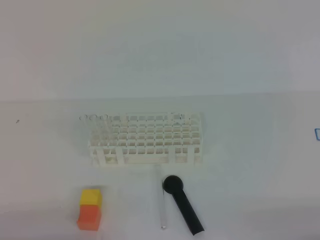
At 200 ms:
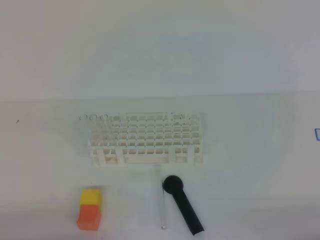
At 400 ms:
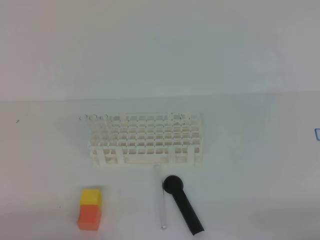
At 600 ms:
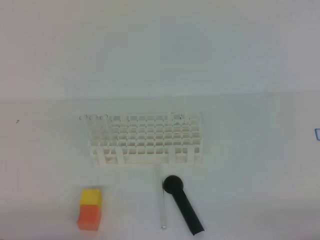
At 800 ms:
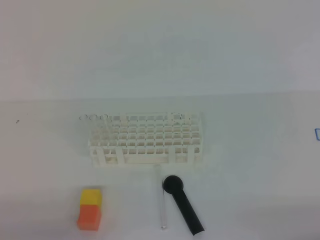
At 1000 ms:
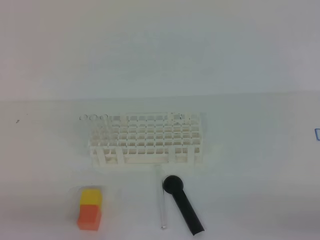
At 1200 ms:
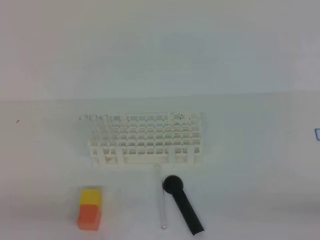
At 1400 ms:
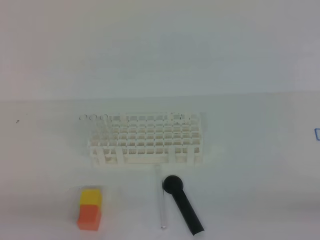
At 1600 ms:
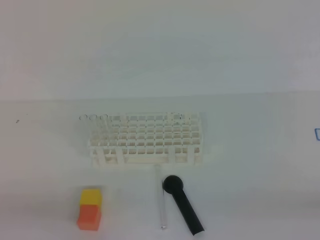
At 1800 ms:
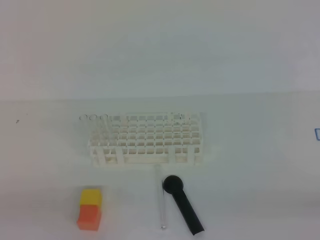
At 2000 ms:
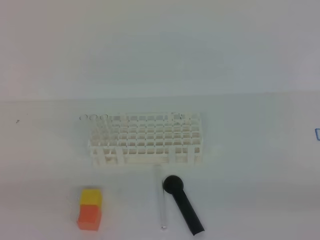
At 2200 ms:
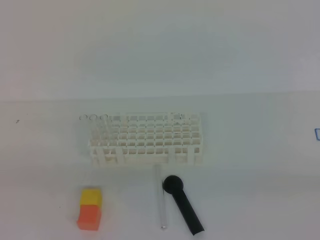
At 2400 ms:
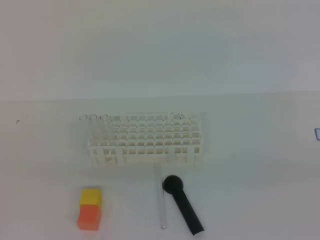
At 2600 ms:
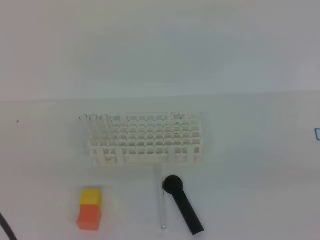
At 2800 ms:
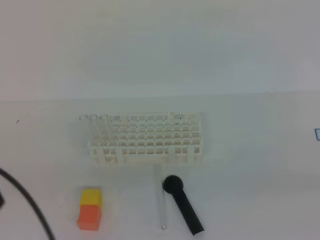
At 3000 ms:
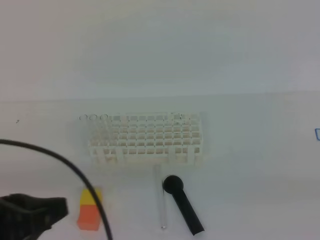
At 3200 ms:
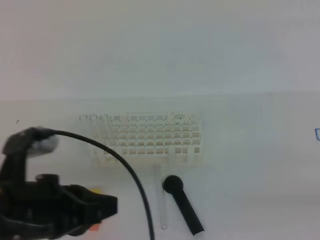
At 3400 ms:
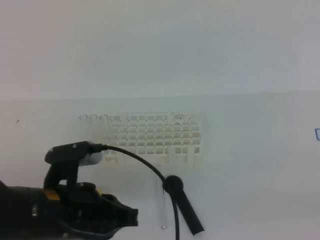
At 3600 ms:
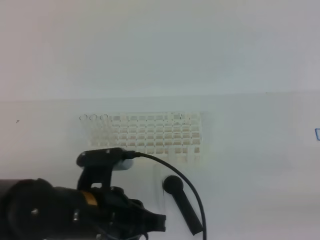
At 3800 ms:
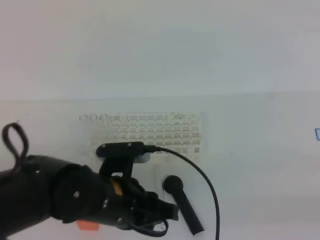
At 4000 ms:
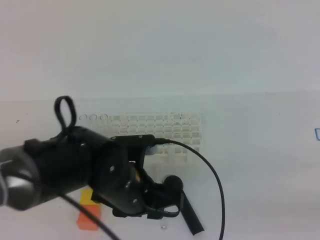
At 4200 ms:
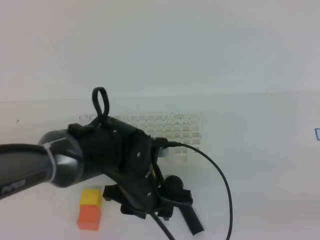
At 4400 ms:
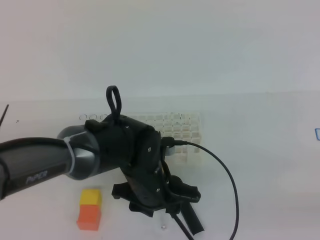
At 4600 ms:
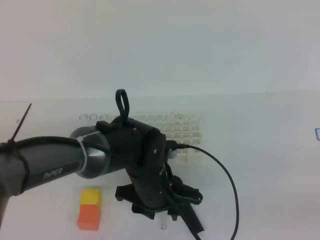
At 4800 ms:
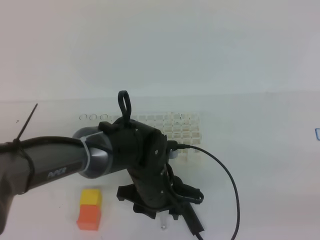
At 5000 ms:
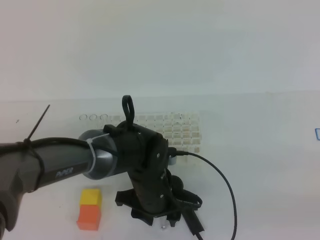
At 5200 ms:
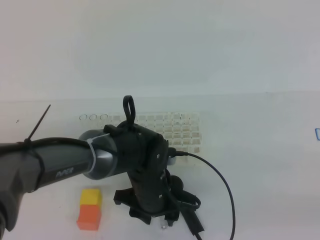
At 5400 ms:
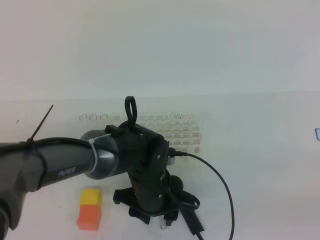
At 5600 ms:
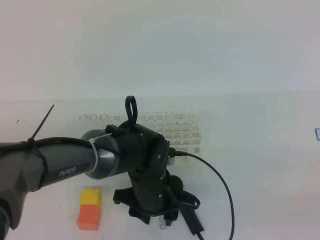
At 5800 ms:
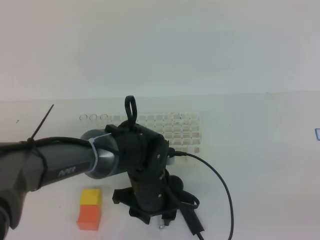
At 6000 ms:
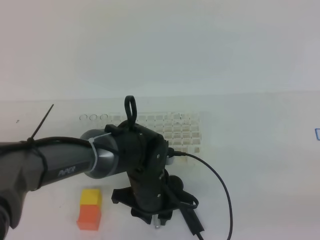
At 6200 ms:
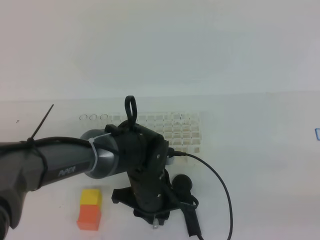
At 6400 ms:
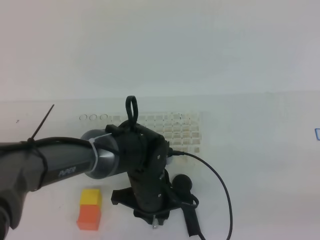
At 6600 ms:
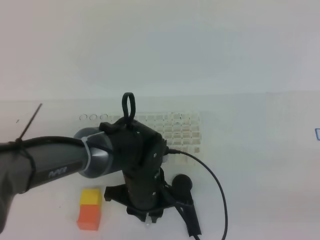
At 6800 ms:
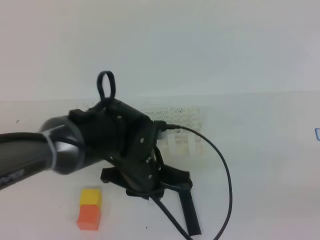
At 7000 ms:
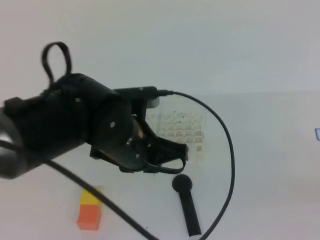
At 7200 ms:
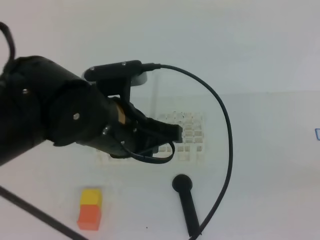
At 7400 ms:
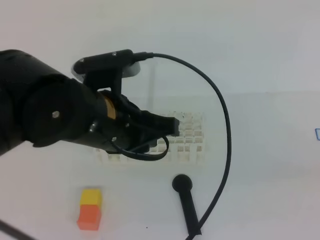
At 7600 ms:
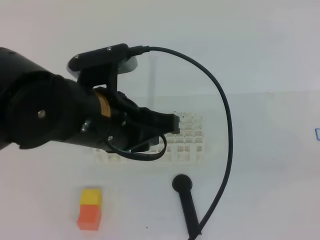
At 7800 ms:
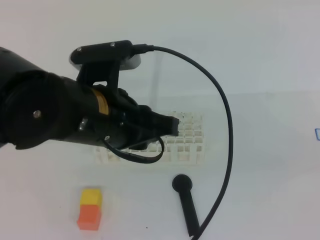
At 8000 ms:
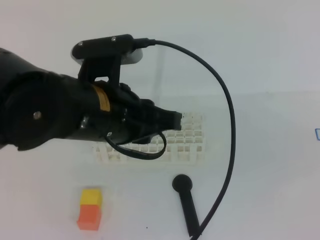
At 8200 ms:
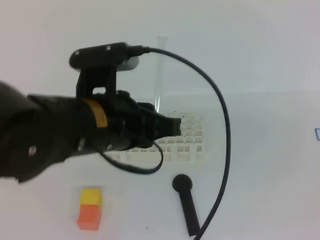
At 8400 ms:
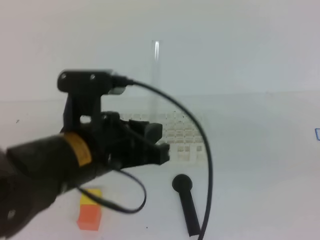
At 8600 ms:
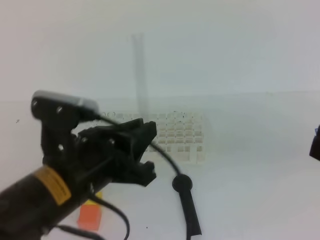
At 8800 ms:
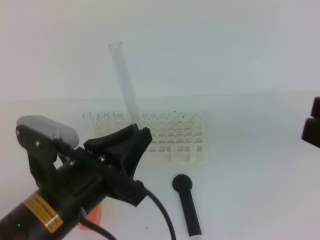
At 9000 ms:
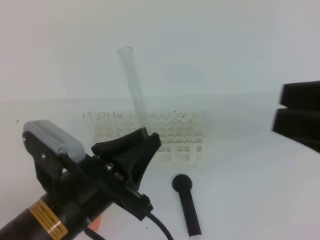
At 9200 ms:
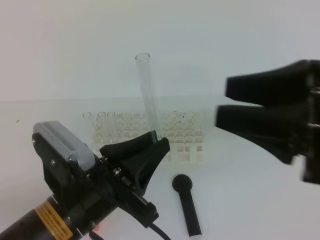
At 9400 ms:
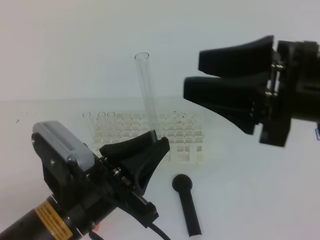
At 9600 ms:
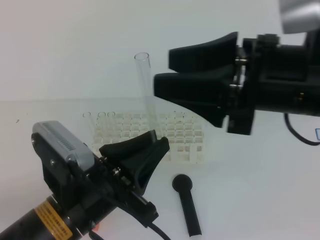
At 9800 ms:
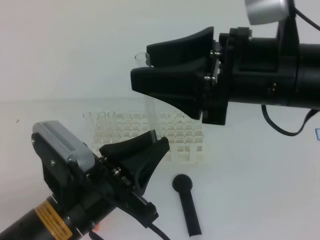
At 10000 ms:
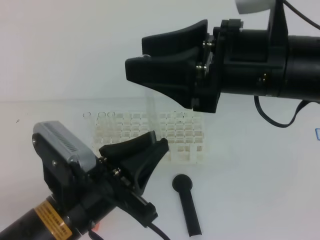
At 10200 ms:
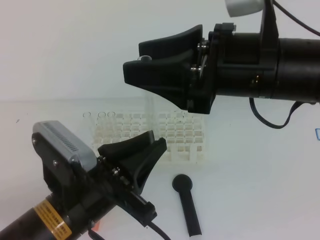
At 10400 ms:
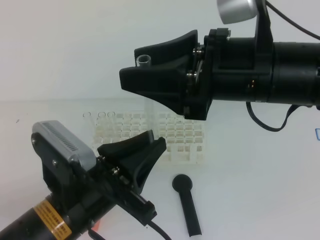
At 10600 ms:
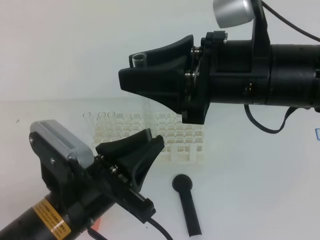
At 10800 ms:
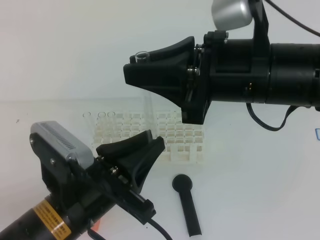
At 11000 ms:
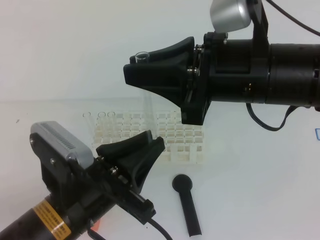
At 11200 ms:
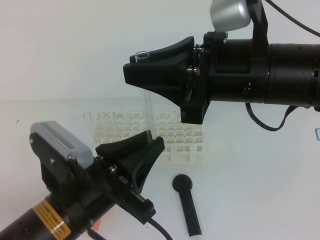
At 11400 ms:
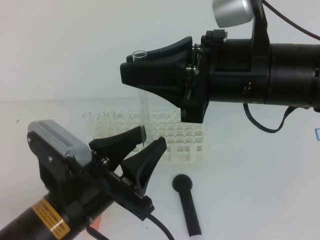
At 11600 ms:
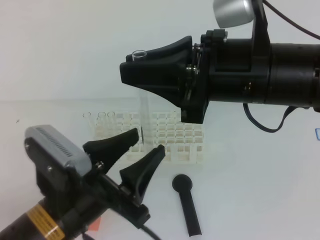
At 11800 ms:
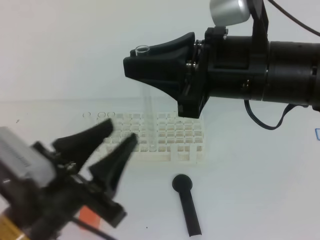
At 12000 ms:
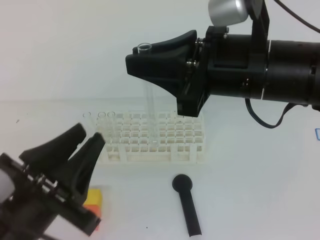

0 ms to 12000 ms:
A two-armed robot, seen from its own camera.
1600 ms to 3000 ms: The left gripper heads upward and forward, covering some 10 cm.
3000 ms to 4400 ms: The left gripper moves to the right, forward and downward, about 25 cm, and opens.
4400 ms to 6000 ms: The grippers stay close to where they were, moving slightly.
6000 ms to 7600 ms: The left gripper heads upward, covering roughly 20 cm, and closes.
7600 ms to 9000 ms: The right gripper travels forward and to the left by approximately 15 cm, and opens up; the left gripper shifts roughly 10 cm downward and backward.
9000 ms to 10400 ms: The right gripper moves to the left and forward, roughly 15 cm.
10400 ms to 12000 ms: The right gripper closes its fingers. Meanwhile the left gripper is displaced to the left by roughly 5 cm, and opens up.

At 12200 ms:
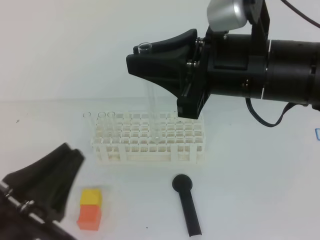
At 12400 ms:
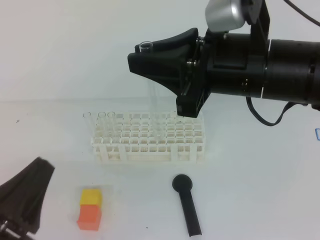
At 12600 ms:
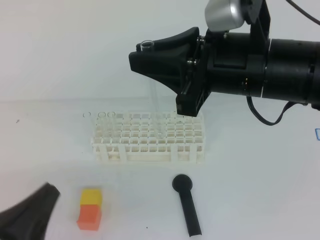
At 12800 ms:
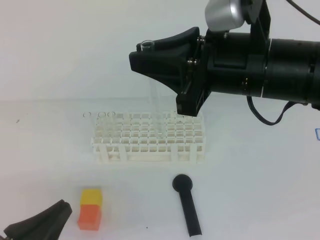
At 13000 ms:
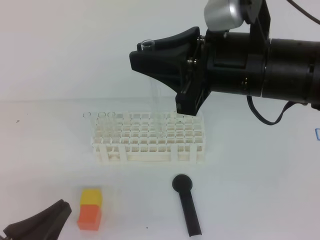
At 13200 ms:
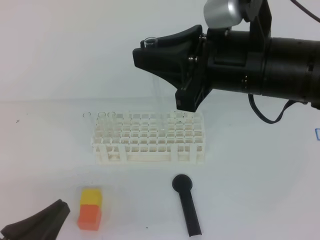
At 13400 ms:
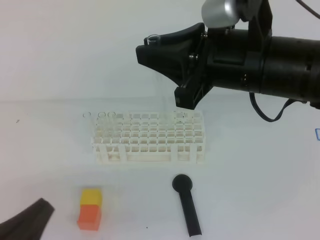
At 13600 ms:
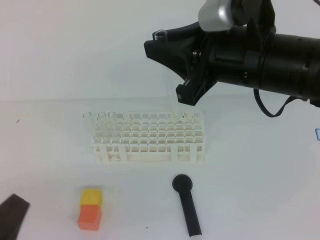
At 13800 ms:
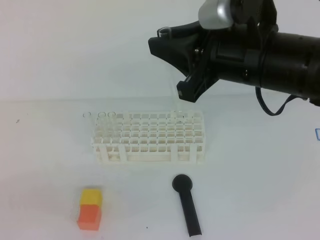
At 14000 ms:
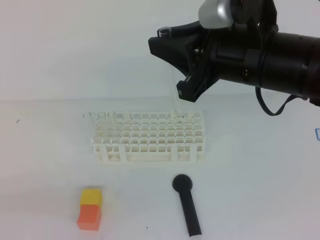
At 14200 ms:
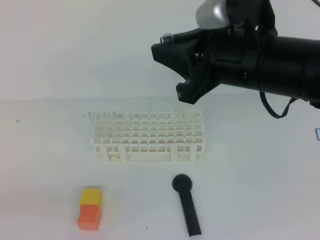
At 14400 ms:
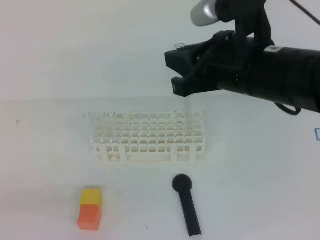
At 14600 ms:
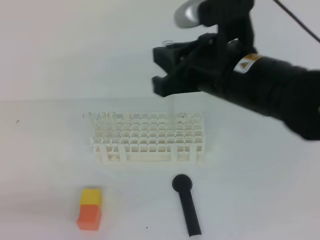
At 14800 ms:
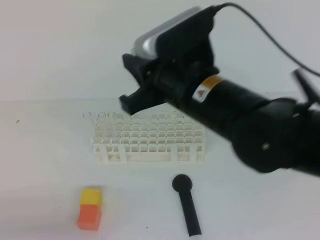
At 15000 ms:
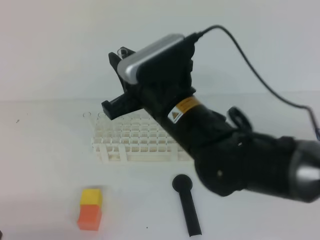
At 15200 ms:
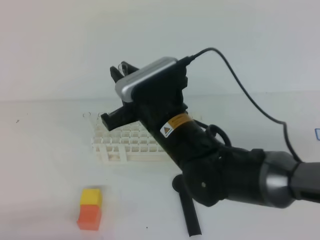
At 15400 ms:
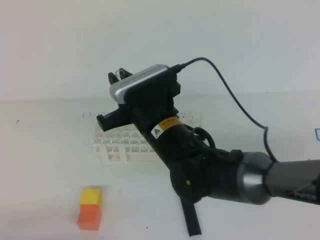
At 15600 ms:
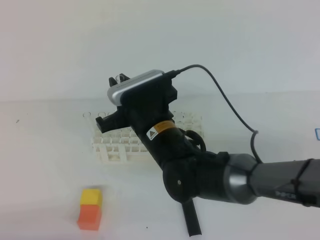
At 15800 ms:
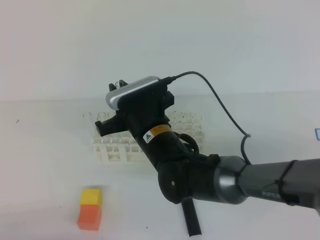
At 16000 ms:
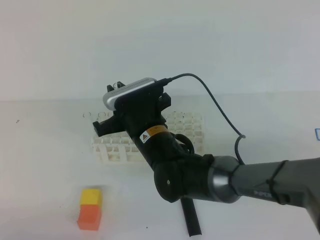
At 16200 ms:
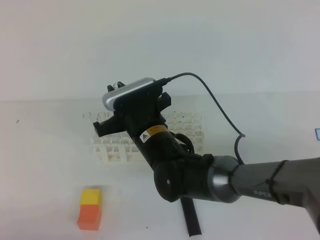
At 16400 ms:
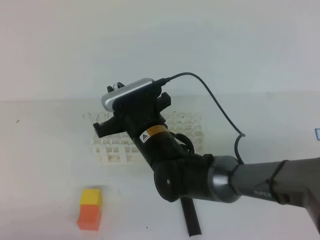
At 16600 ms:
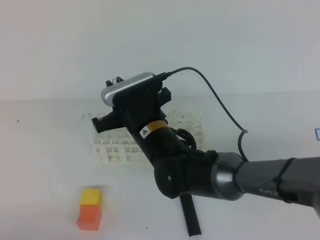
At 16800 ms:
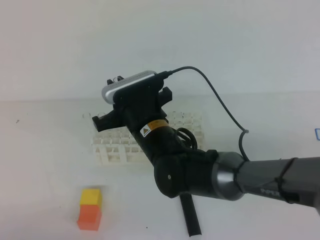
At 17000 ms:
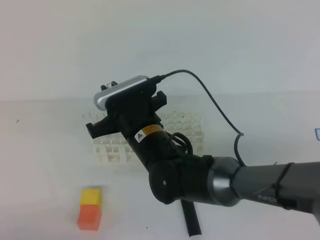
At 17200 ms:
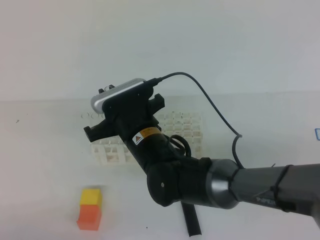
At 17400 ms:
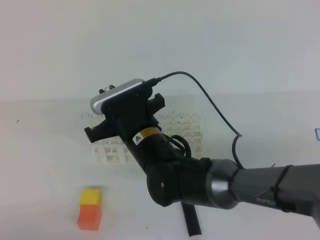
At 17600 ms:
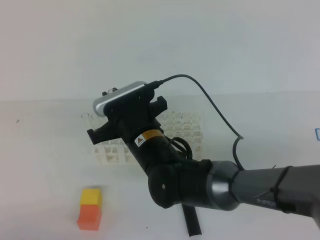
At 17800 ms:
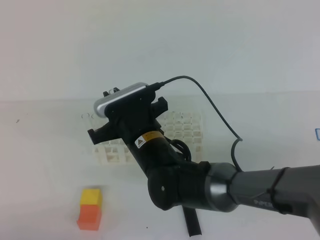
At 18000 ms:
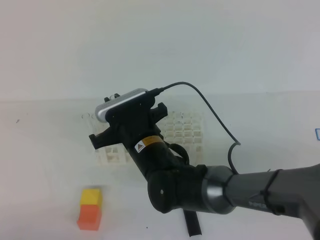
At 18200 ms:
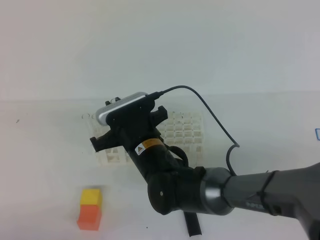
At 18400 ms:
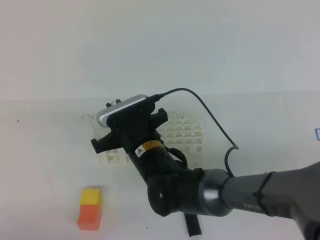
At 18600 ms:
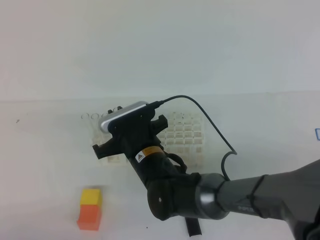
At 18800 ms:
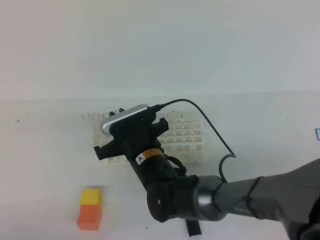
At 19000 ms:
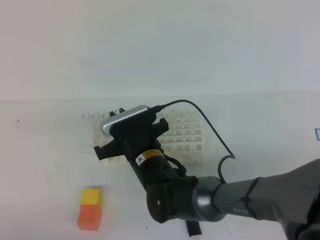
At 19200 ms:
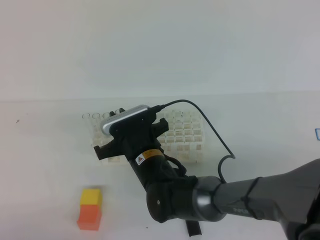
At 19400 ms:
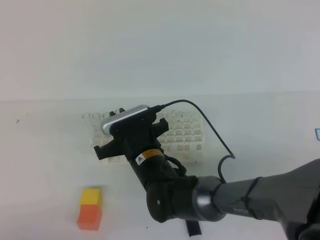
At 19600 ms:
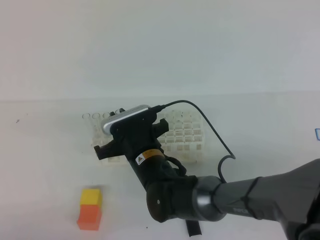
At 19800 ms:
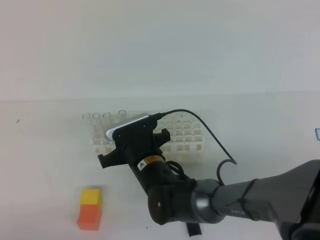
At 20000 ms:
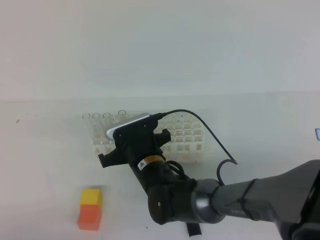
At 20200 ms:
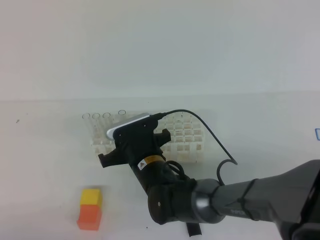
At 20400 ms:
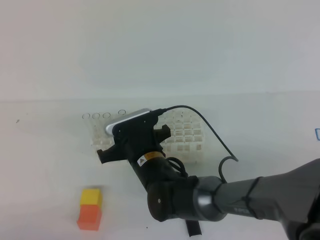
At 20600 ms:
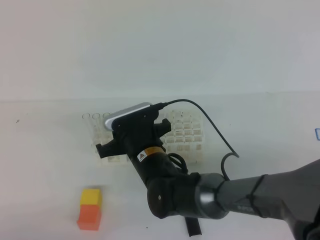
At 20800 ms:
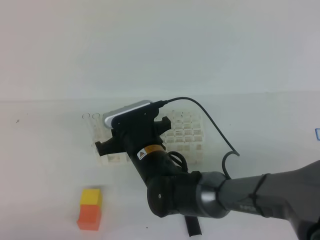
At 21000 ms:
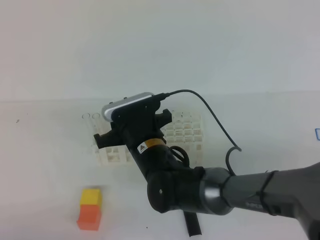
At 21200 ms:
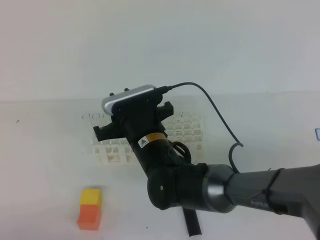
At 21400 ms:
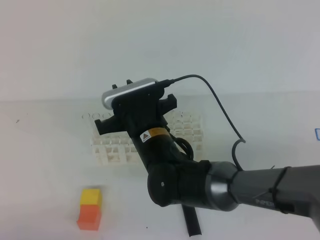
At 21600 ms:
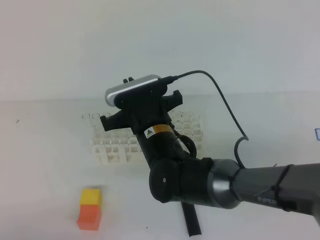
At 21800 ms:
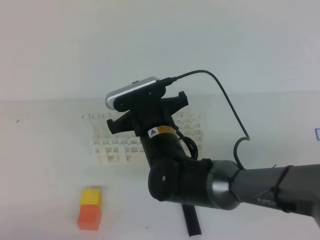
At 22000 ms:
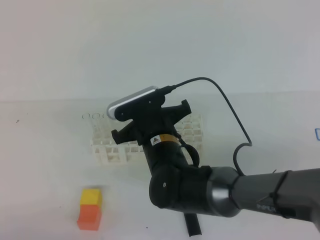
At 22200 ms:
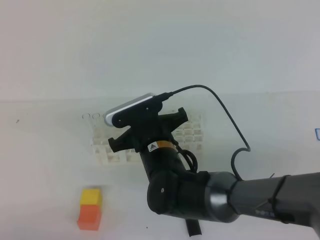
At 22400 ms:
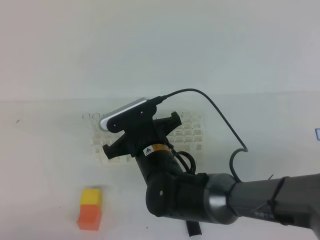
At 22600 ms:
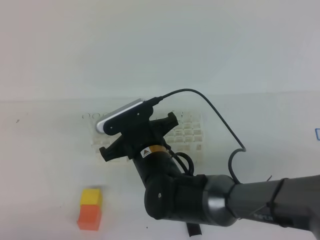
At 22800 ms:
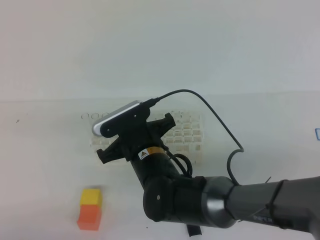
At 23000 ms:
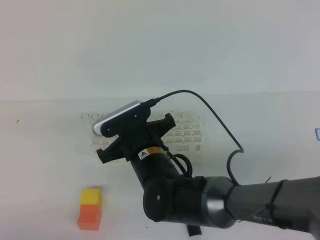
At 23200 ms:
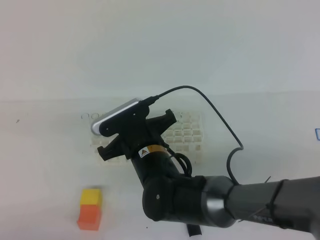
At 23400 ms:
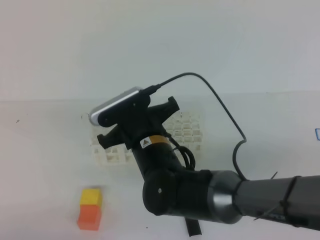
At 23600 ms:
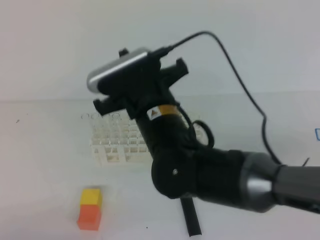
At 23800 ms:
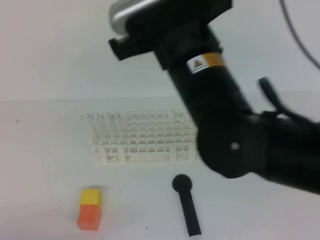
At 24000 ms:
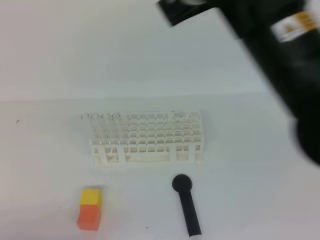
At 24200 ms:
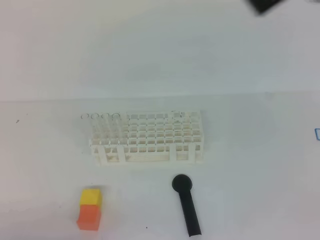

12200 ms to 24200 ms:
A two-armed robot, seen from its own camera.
12200 ms to 13800 ms: The left gripper shifts roughly 5 cm to the left, and closes.
13800 ms to 15200 ms: The left gripper is displaced downward by roughly 5 cm. The right gripper travels to the left and downward by about 15 cm.
15200 ms to 16600 ms: The right gripper is displaced downward by roughly 5 cm.
16600 ms to 18200 ms: The grippers move only a little.
18200 ms to 19800 ms: The grippers move only a little.
19800 ms to 21200 ms: The right gripper moves upward, about 5 cm.
21200 ms to 22600 ms: The right gripper closes.
22600 ms to 24200 ms: The right gripper goes about 35 cm upward and to the right.
